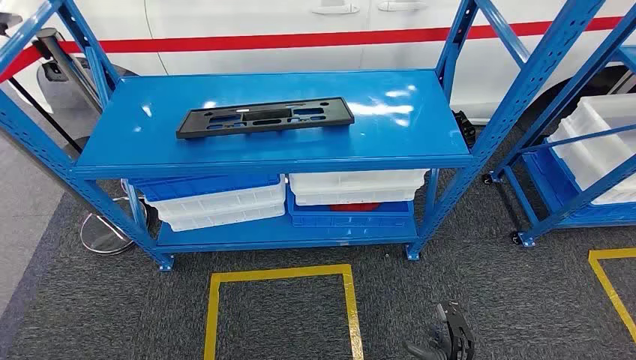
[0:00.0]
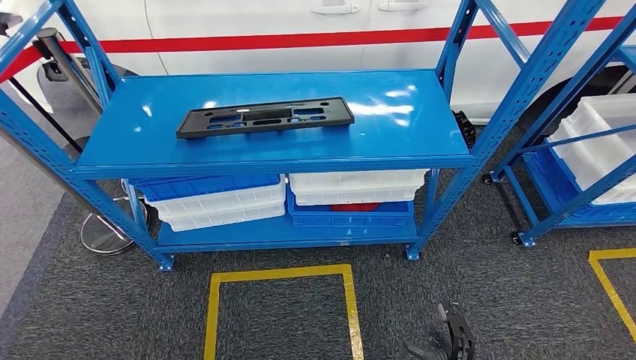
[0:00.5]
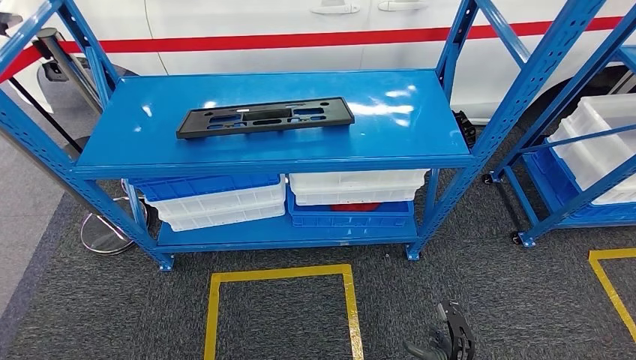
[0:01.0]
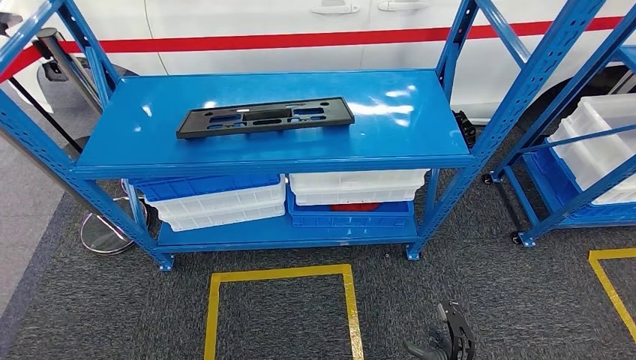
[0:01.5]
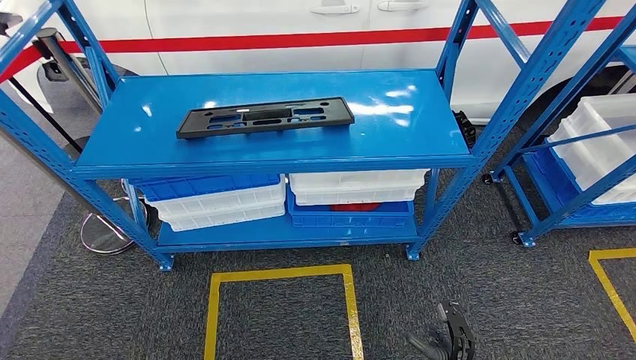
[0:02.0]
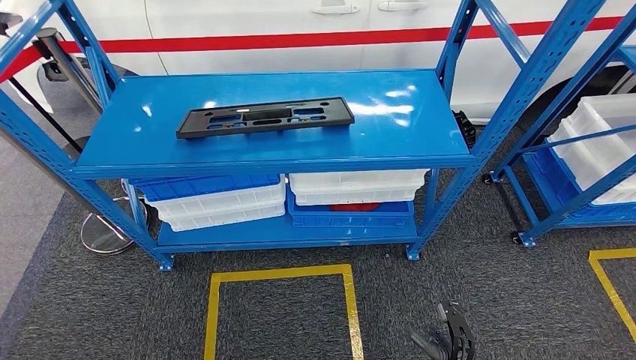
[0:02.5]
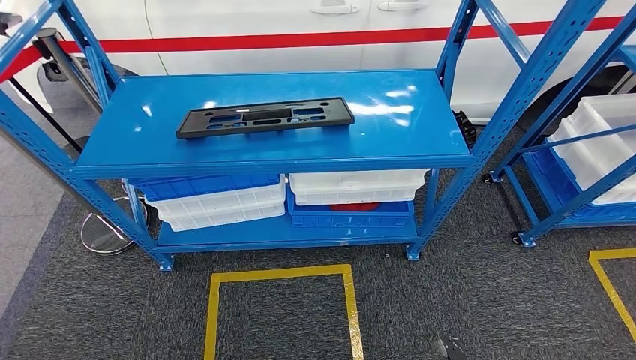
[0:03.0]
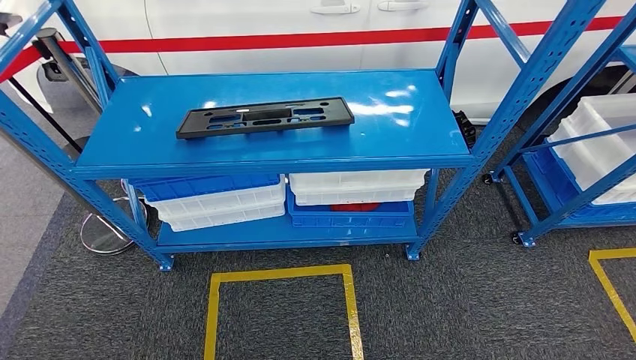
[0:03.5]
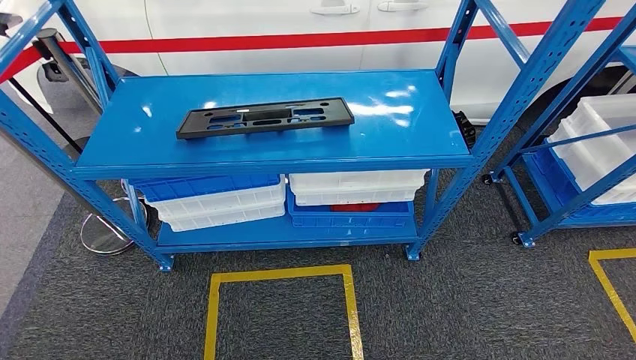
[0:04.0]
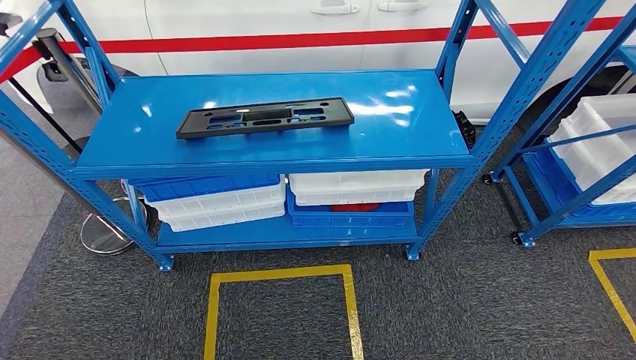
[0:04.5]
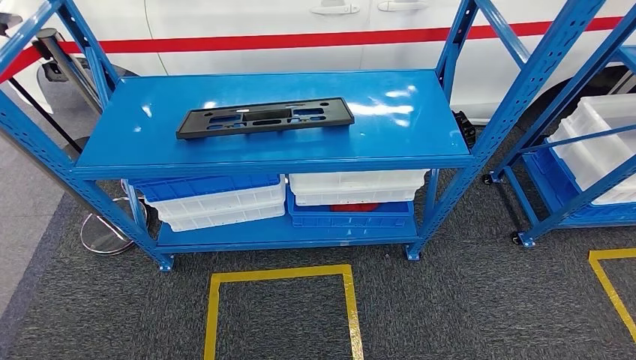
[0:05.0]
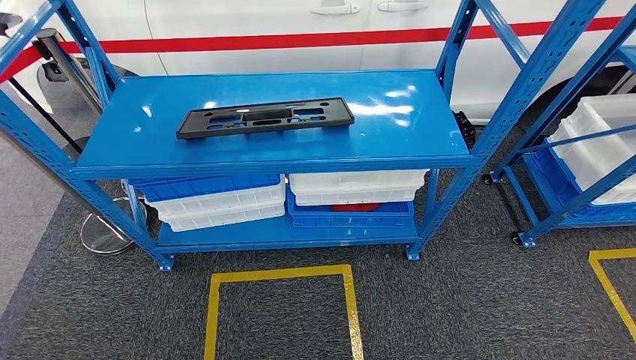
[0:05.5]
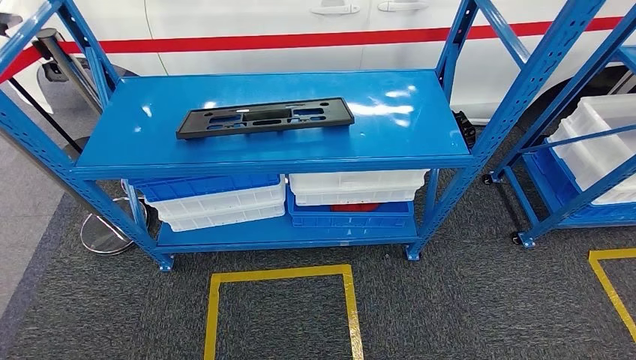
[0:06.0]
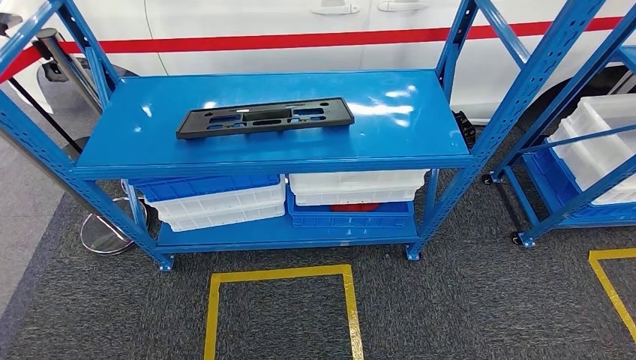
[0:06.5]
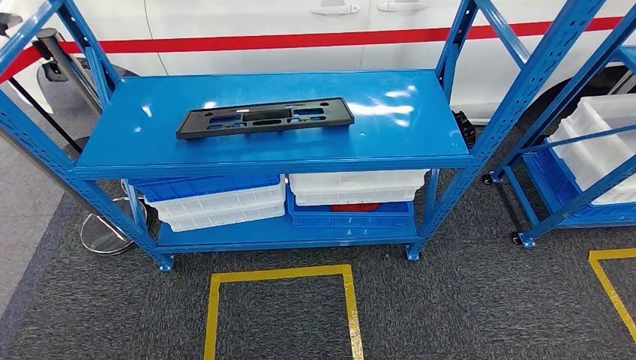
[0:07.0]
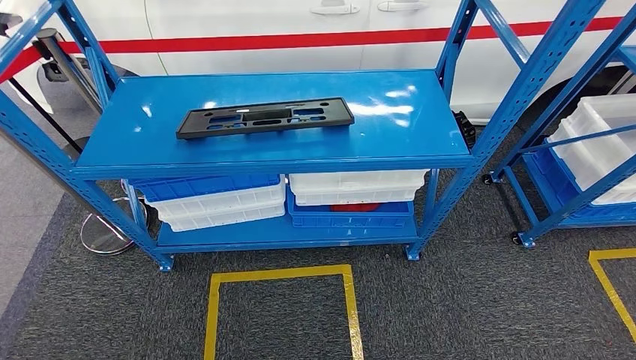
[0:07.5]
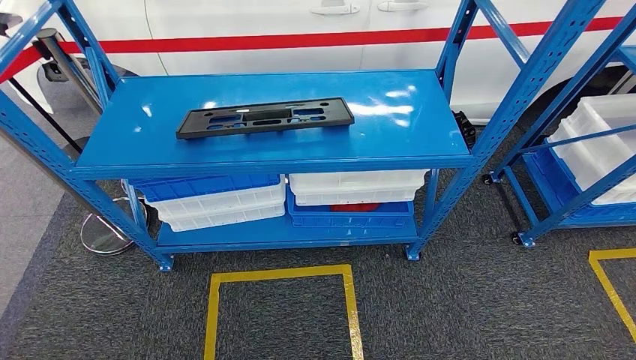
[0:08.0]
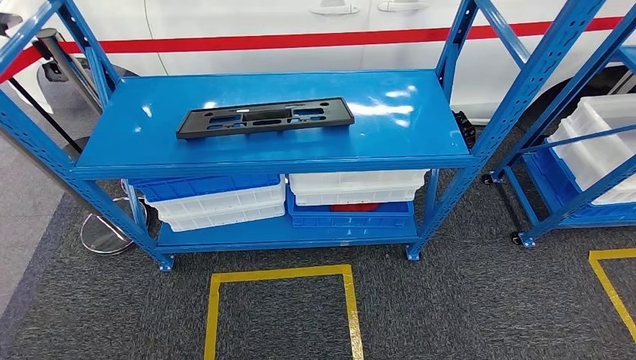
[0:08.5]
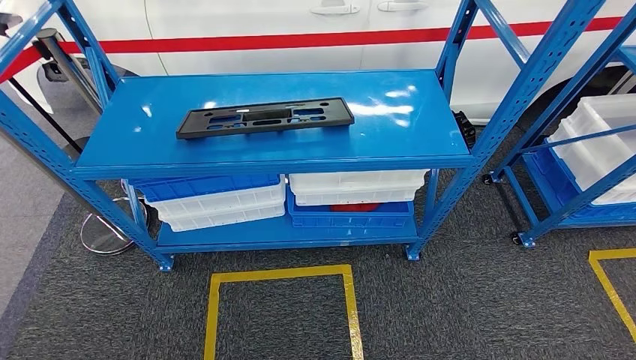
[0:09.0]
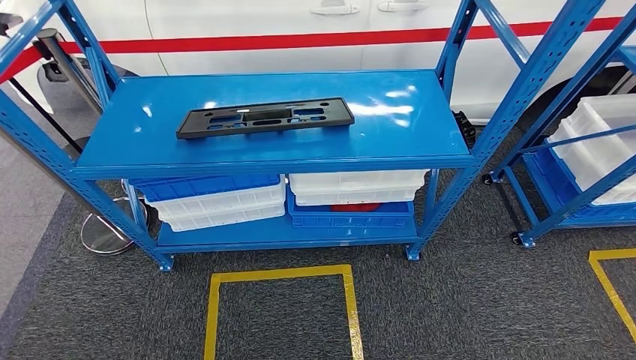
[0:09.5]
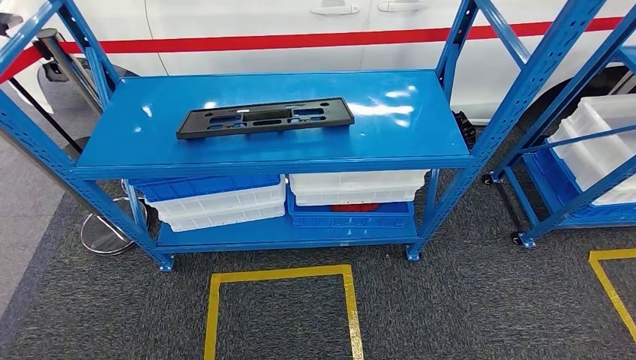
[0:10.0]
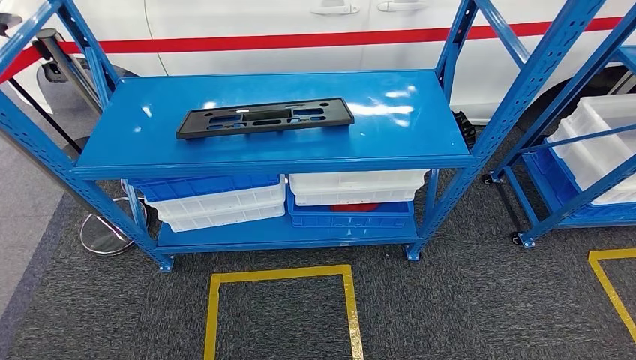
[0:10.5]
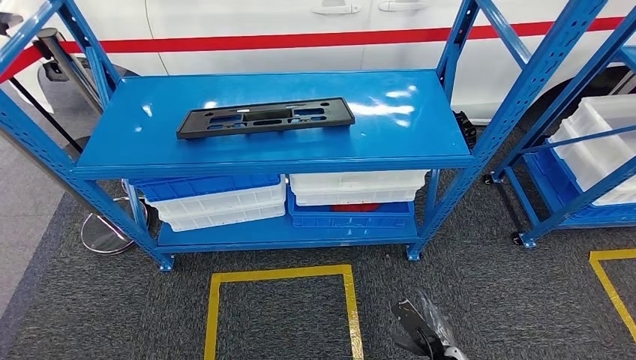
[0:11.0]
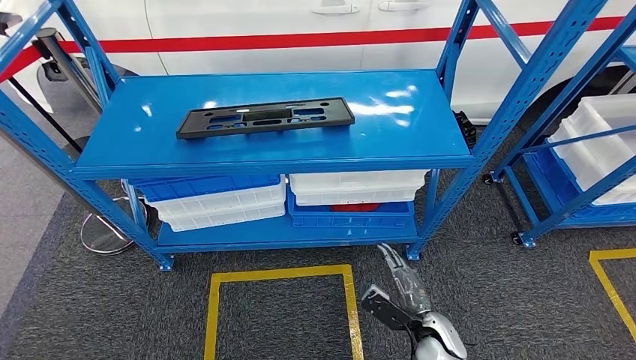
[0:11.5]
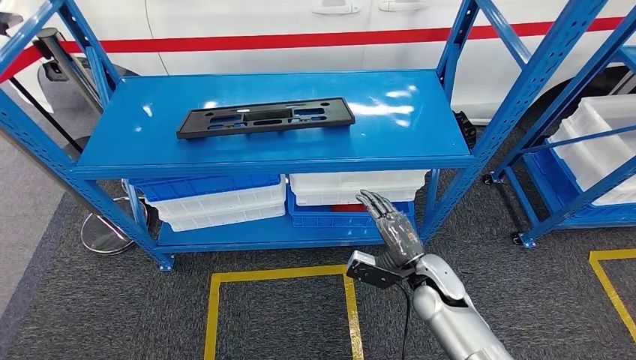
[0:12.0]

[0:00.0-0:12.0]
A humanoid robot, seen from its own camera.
4.0 to 8.0 s: The two hands keep their place.
10.0 to 12.0 s: The right hand heads forward and upward, covering roughly 40 cm. The left hand moves roughly 5 cm.

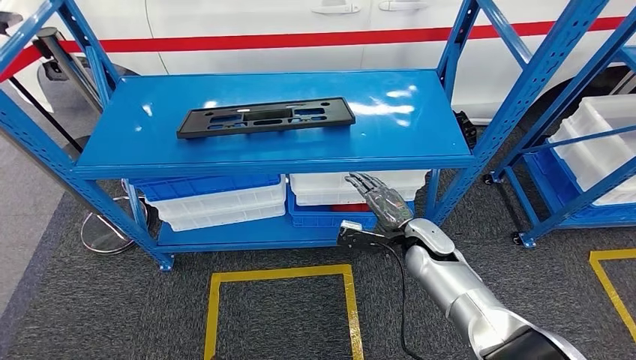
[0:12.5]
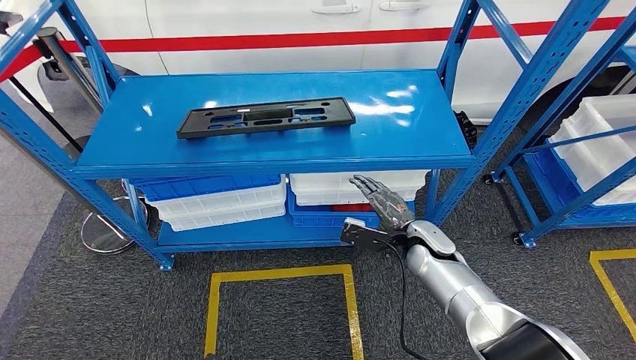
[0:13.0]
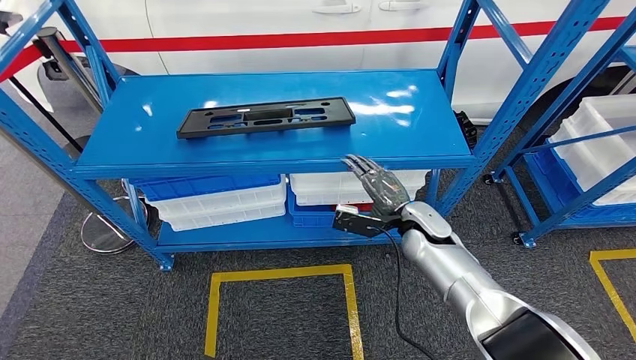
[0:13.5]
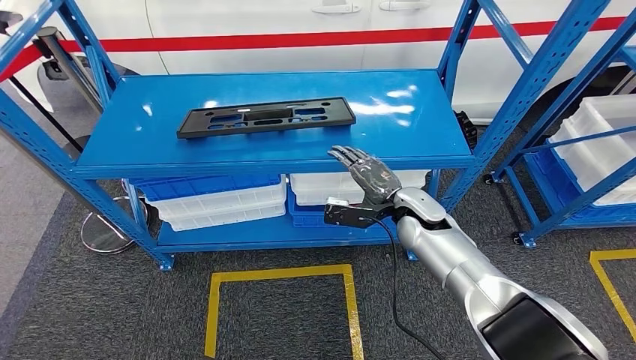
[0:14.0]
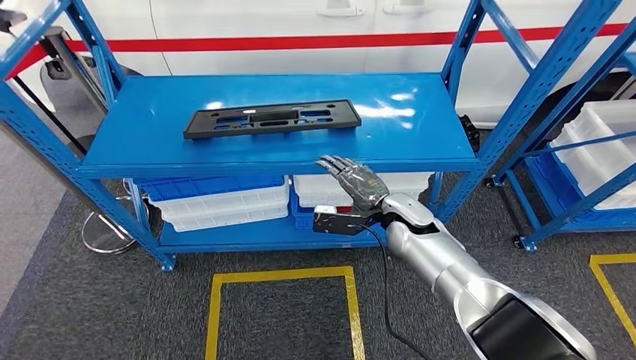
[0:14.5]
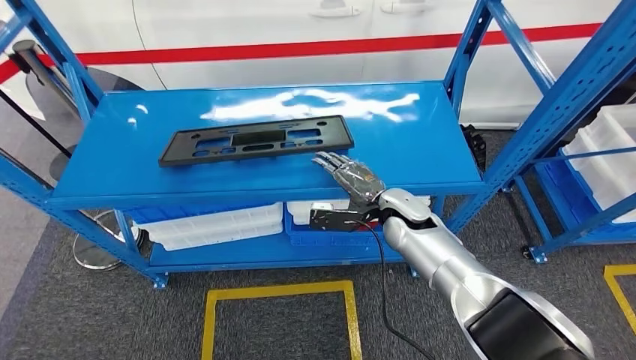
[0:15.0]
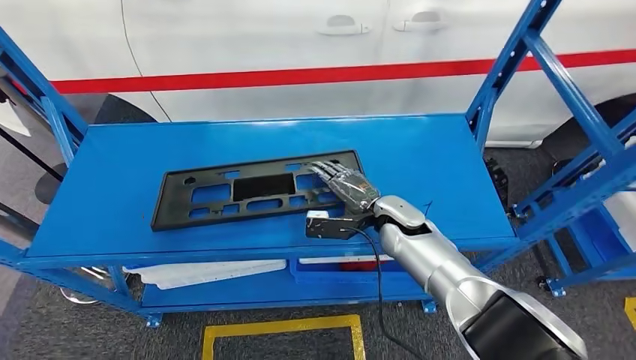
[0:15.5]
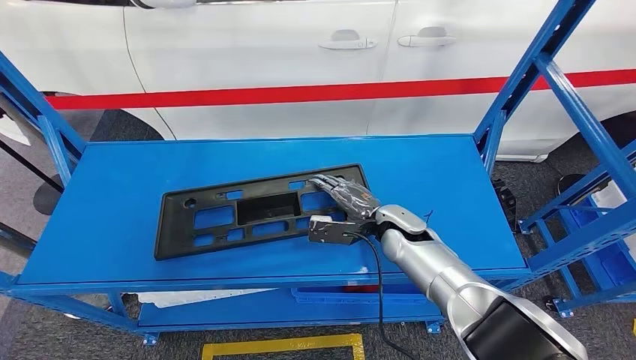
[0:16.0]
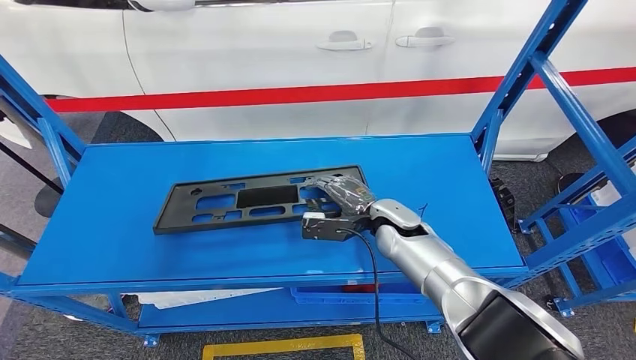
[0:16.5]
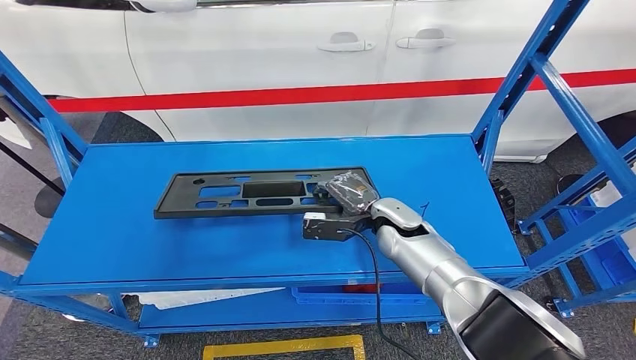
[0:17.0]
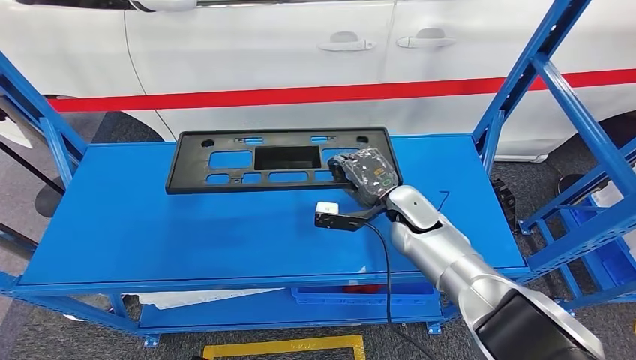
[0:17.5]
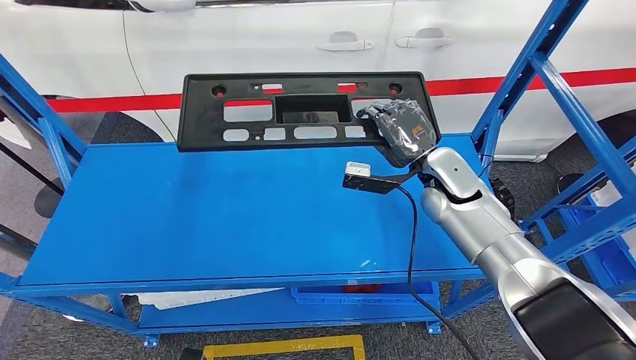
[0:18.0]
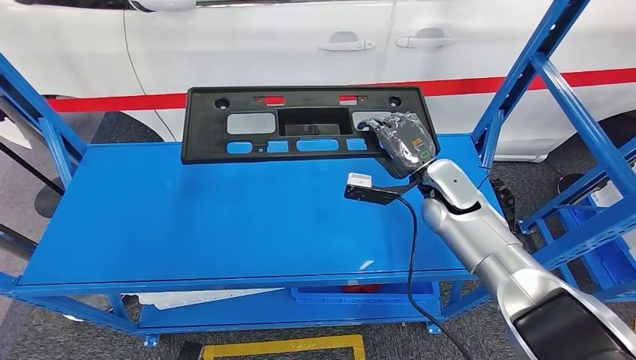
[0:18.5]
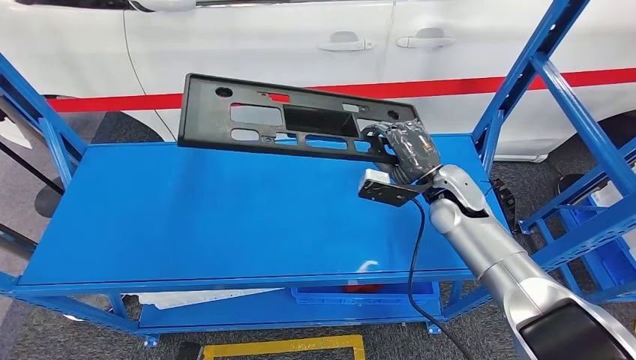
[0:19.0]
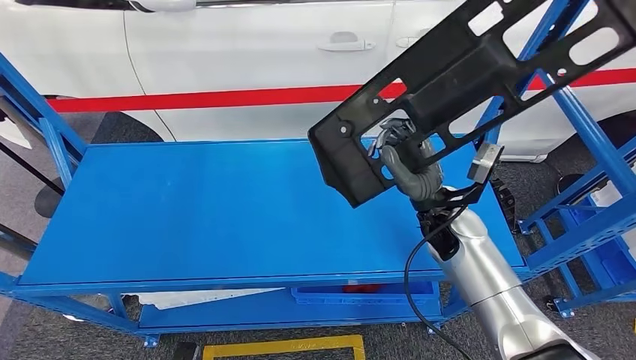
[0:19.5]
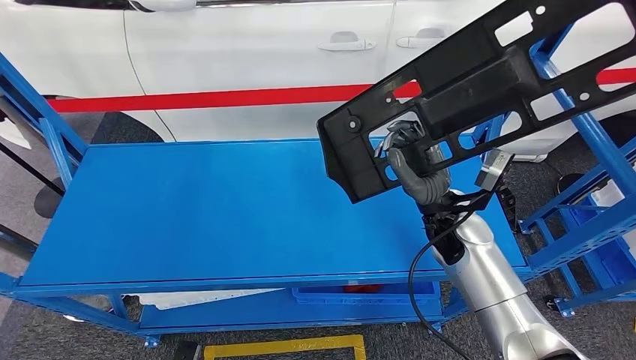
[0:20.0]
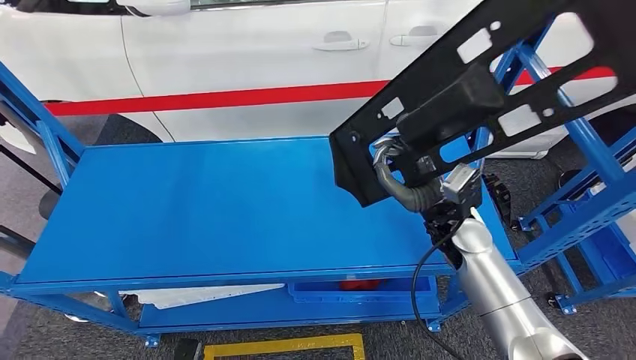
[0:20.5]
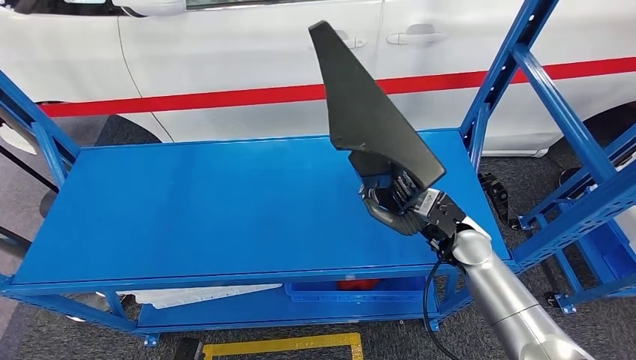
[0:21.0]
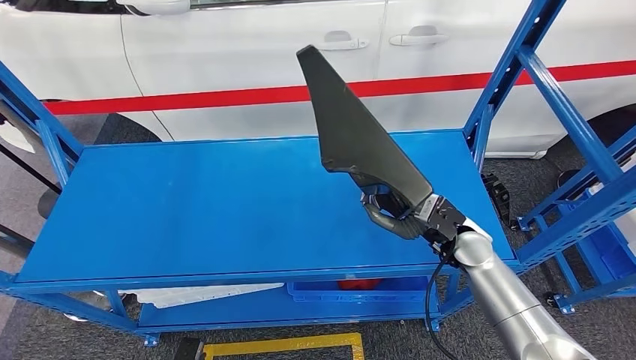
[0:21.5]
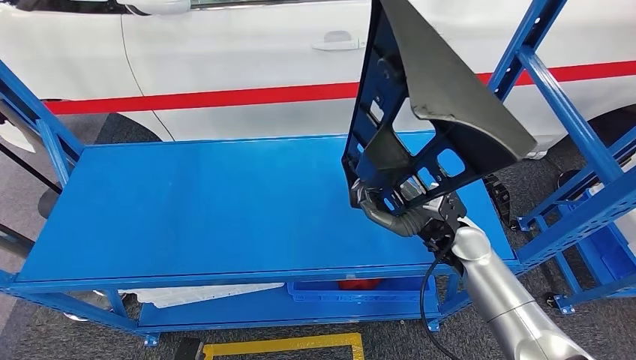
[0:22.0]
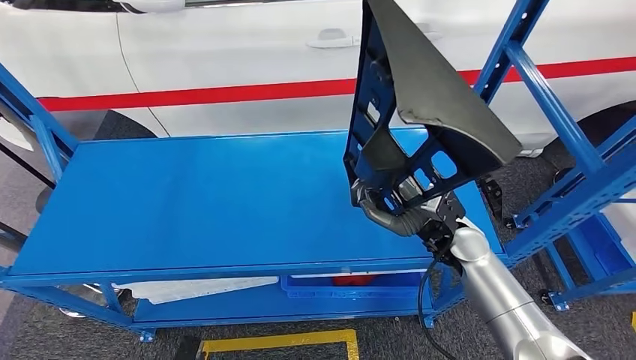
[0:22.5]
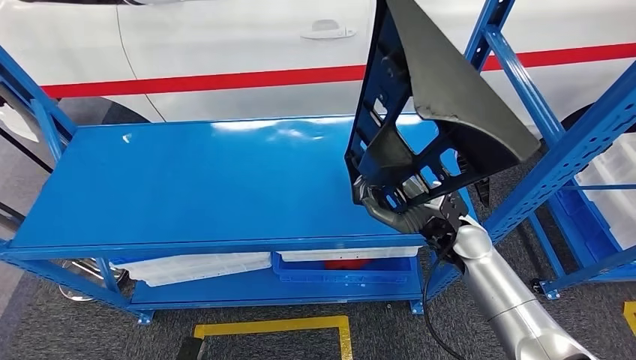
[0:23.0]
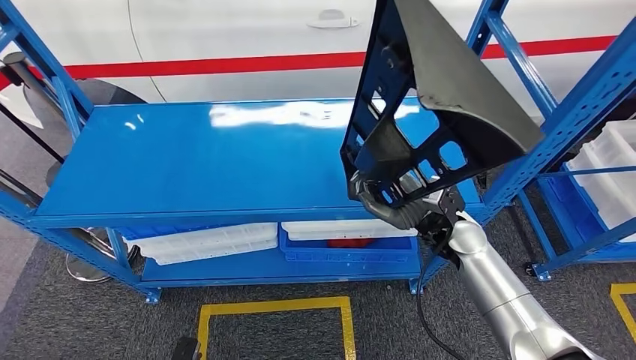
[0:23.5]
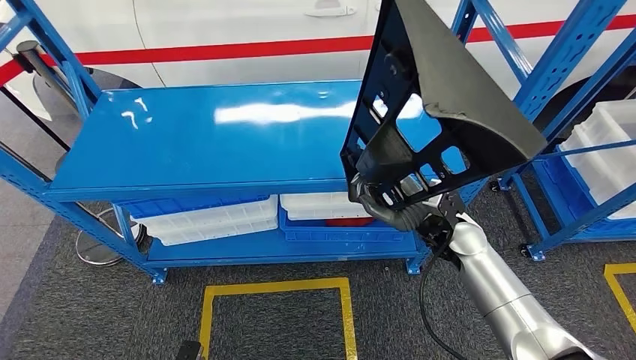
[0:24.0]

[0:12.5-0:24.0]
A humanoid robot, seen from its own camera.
Step, 12.5 to 18.0 s: Pick up the large material from the shelf.
